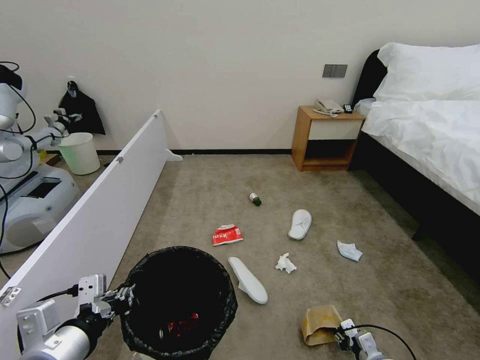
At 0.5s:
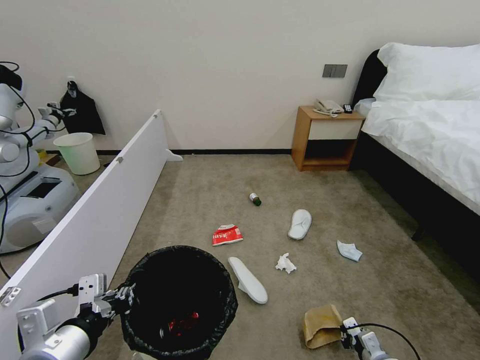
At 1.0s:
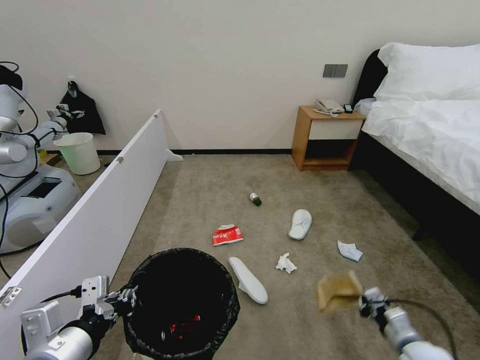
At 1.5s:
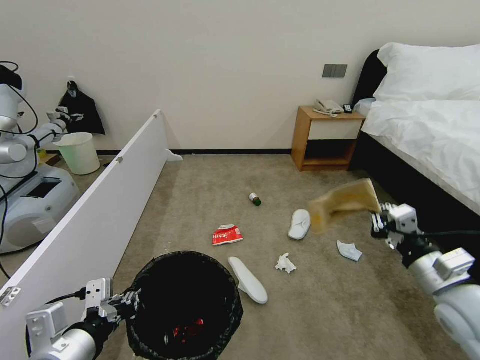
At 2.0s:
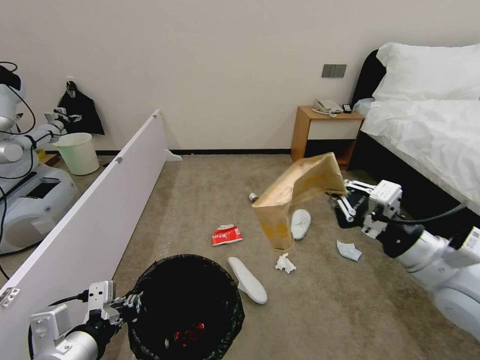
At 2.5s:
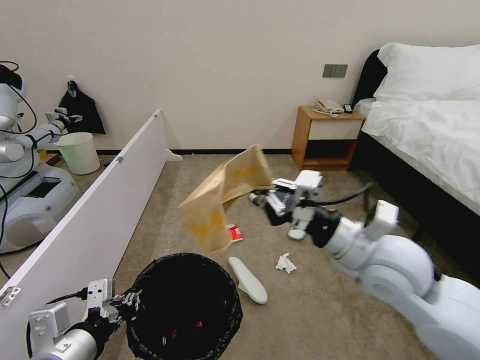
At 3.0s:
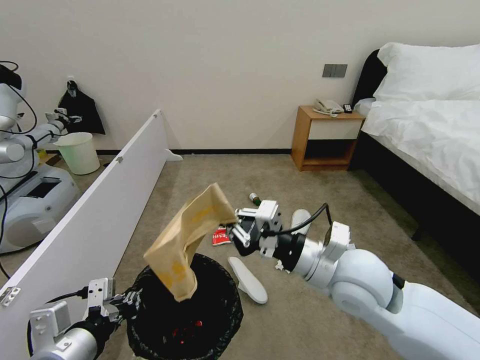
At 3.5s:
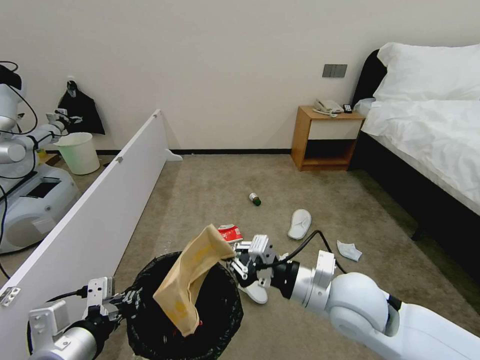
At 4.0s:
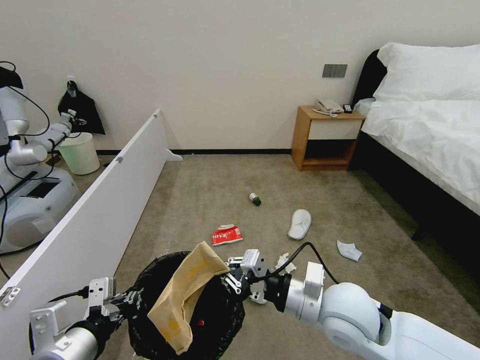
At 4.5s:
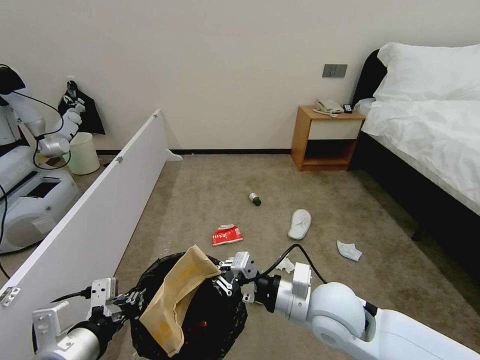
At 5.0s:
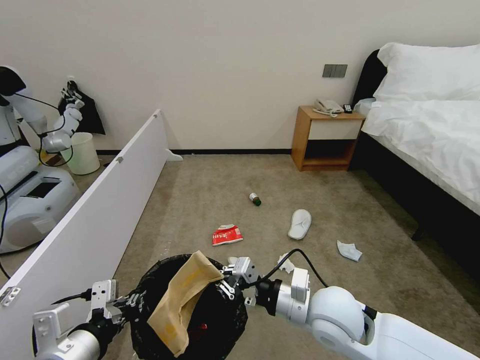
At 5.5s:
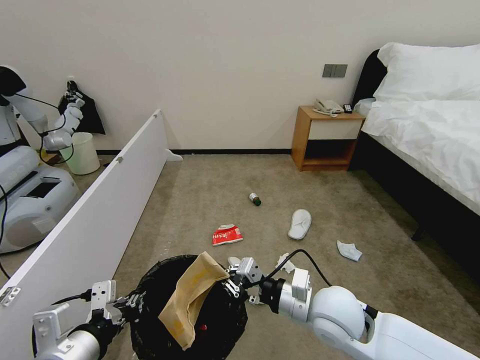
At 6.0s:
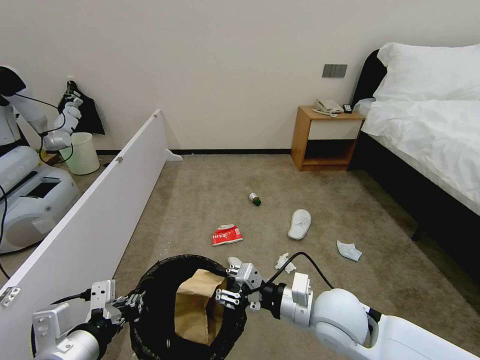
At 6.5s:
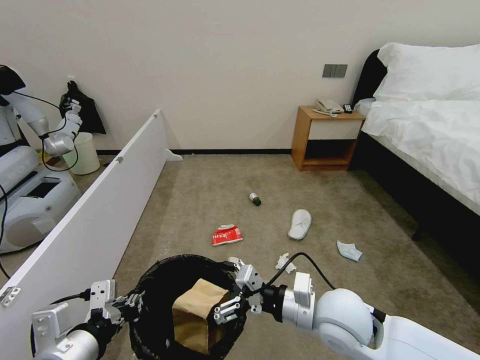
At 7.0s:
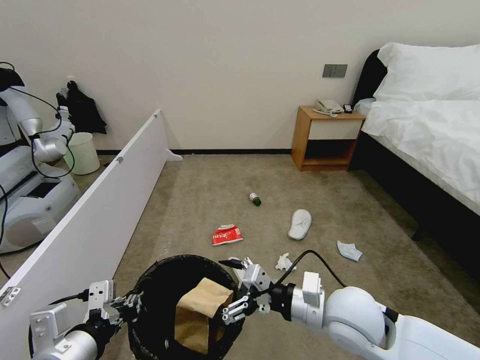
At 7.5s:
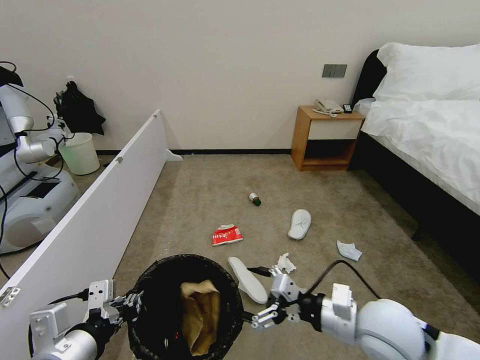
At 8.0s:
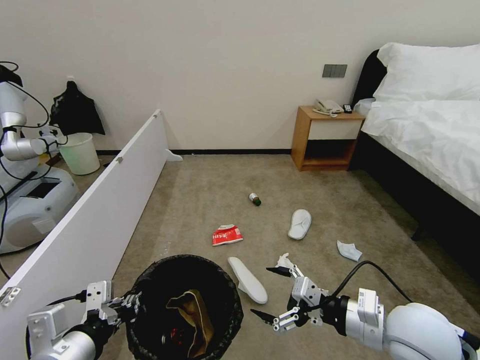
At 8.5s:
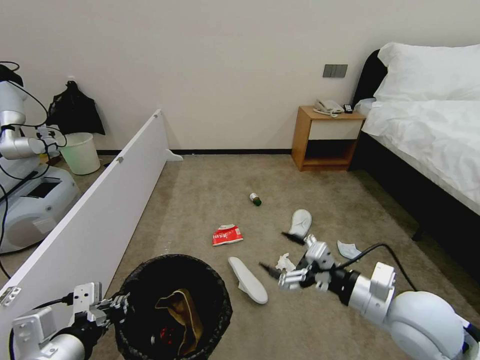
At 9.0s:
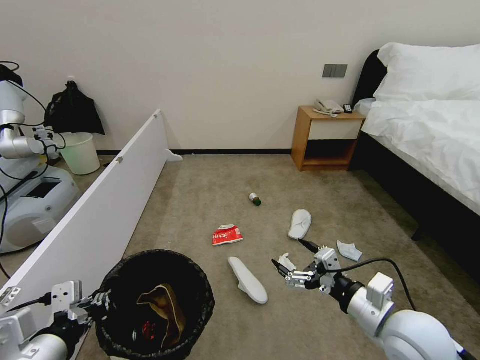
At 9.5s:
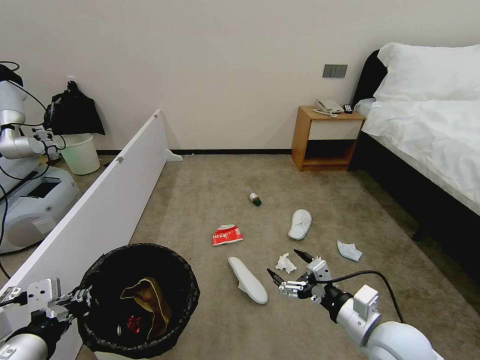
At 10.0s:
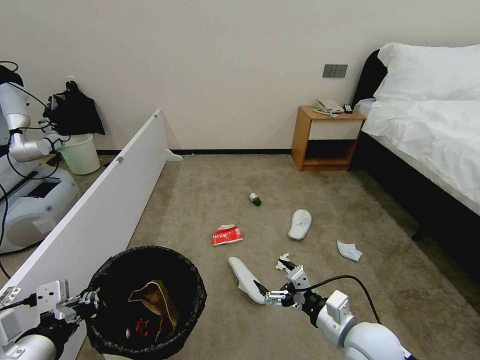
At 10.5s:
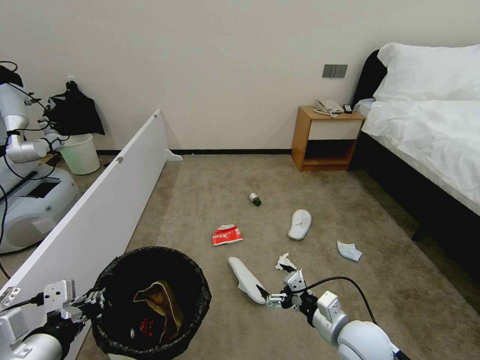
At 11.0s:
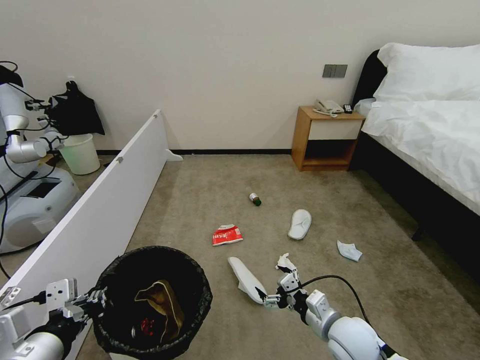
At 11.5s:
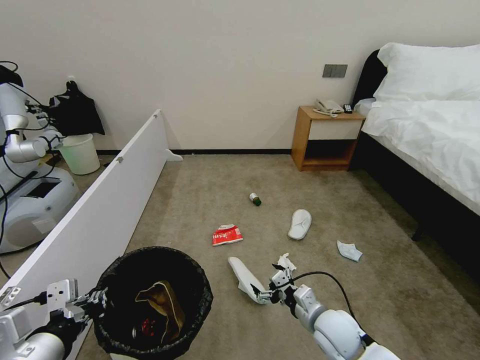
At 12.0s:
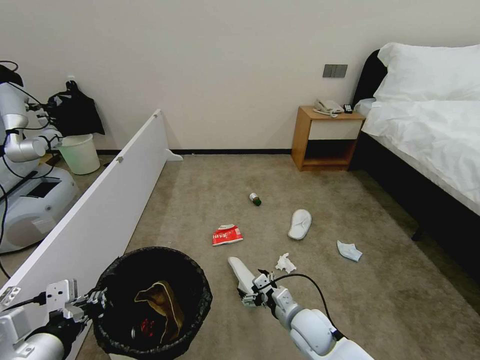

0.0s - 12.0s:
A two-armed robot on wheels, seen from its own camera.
Task of the whole recording: Pick up the trash bin, then pick up the garbage from the floor and place it into the trash bin.
0.0s - 2.0s: The right gripper goes roughly 40 cm upward.
2.0s - 4.0s: The right gripper moves to the left and downward, approximately 20 cm.
4.0s - 6.0s: The right gripper opens its fingers.
6.0s - 8.0s: The right gripper heads to the right, covering approximately 10 cm, and opens up.
8.0s - 10.0s: The right gripper travels downward by some 10 cm.
10.0s - 12.0s: The right gripper shifts approximately 15 cm downward, to the left and forward.

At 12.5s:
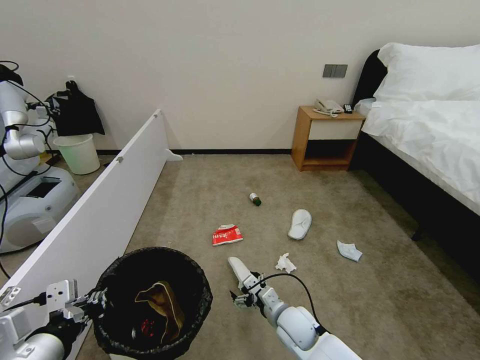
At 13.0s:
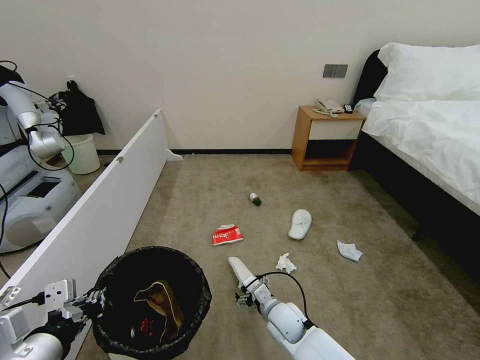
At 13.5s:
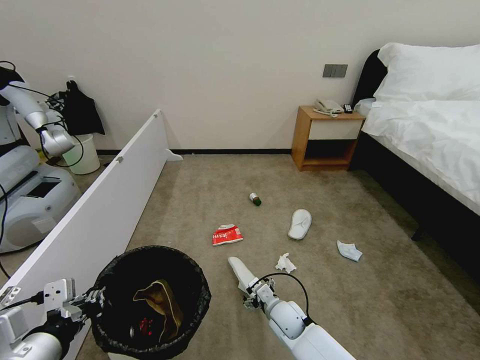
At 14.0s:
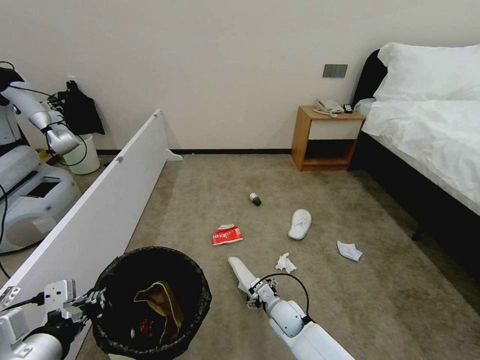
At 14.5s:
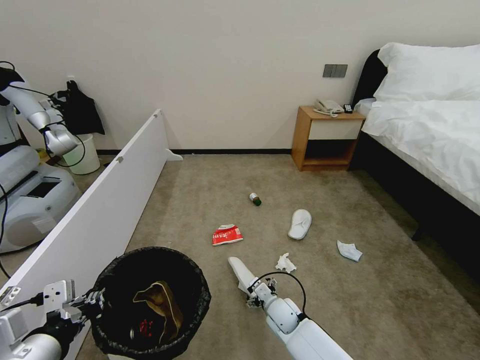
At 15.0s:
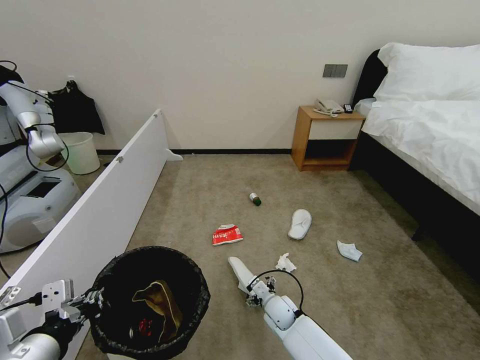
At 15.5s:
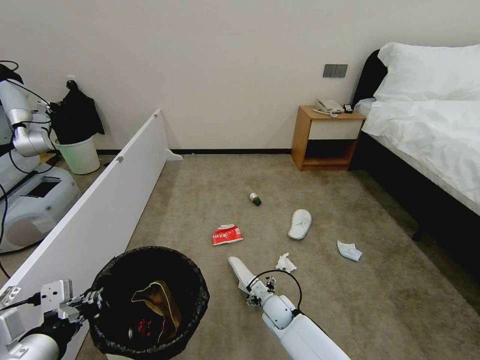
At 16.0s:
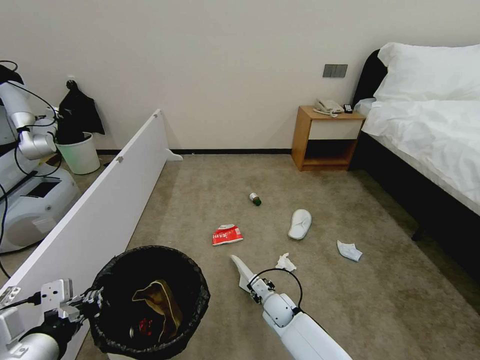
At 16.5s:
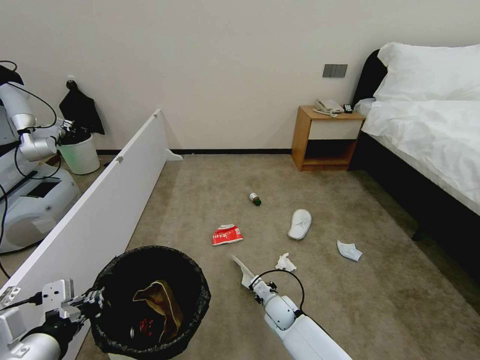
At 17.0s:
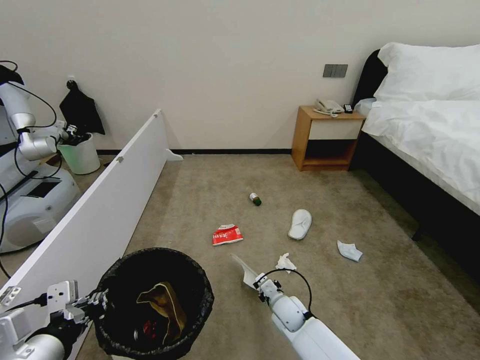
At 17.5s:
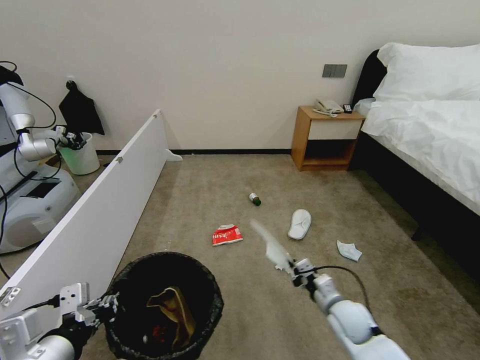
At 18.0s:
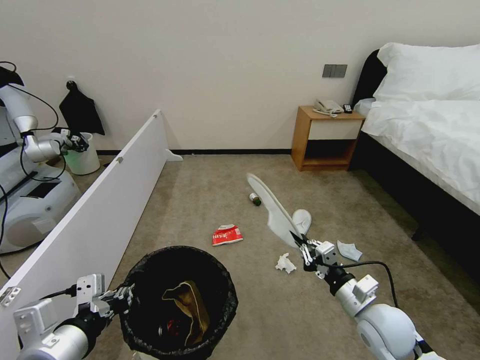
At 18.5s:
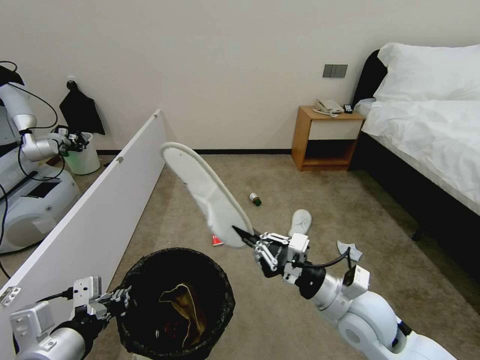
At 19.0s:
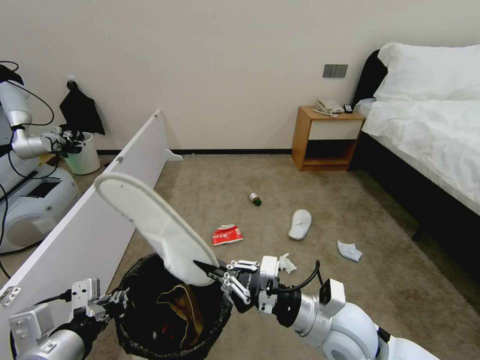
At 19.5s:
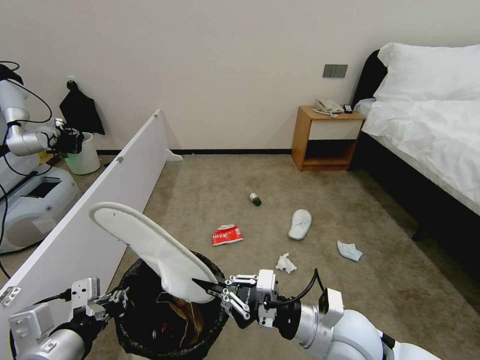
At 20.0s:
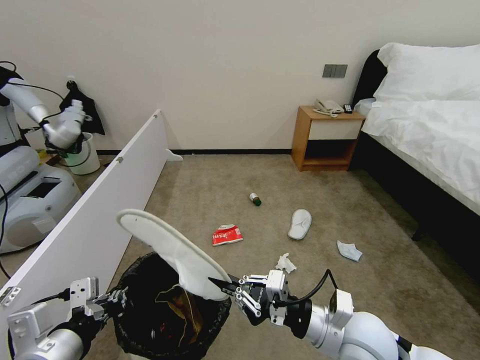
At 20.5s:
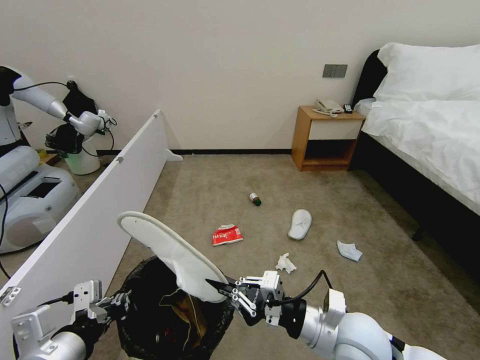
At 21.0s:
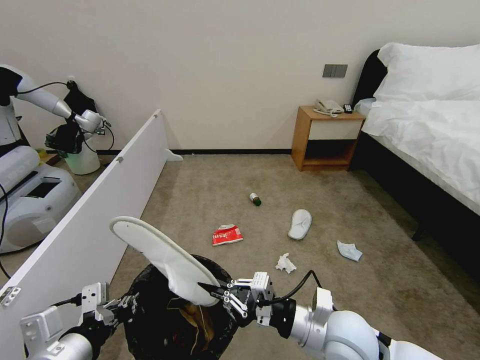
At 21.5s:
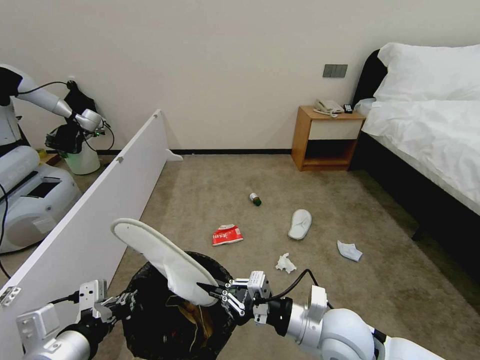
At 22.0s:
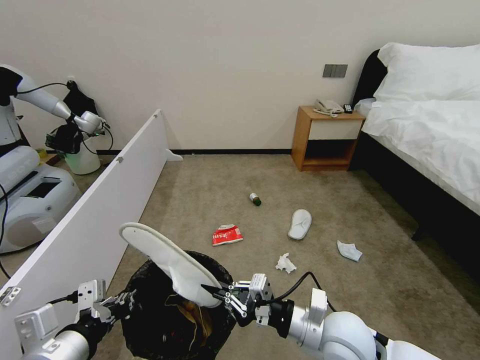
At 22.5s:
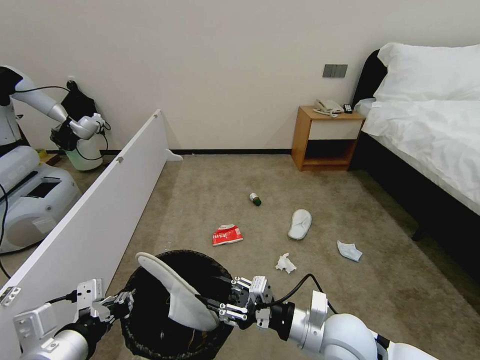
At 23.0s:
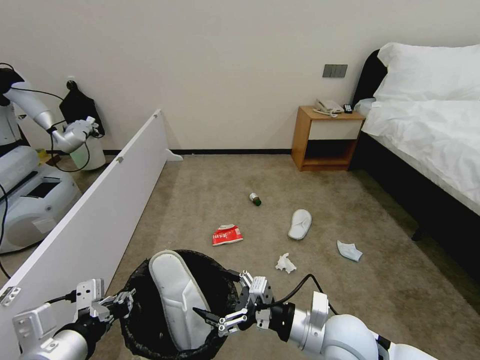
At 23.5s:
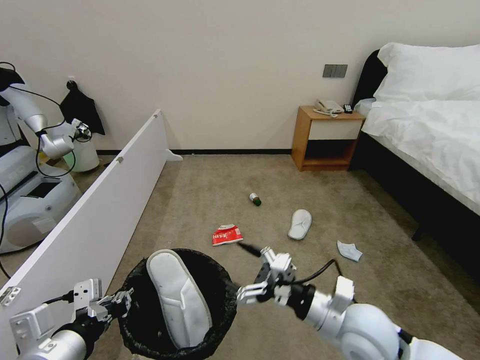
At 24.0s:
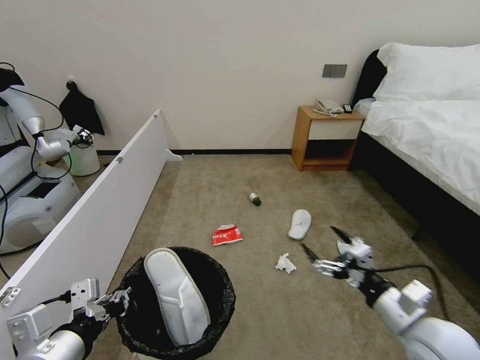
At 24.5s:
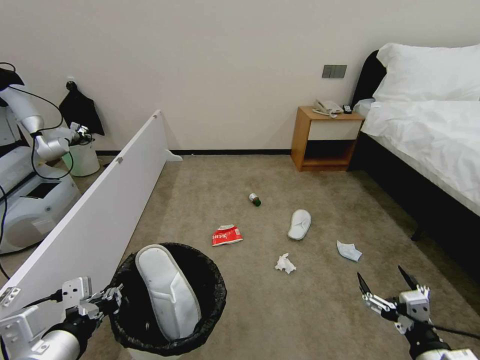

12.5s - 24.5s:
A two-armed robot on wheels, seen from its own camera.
Task of the whole recording: Pick up the trash bin, then pick up the garbage from the floor and place it into the trash bin.
12.5s - 14.5s: The right gripper is displaced downward and forward by approximately 10 cm.
14.5s - 16.5s: The right gripper closes up.
16.5s - 18.5s: The right gripper travels upward, backward and to the right by some 30 cm.
18.5s - 20.5s: The grippers make only small movements.
20.5s - 22.5s: The right gripper opens its fingers.
22.5s - 24.5s: The right gripper shifts some 20 cm to the right and backward, and opens.

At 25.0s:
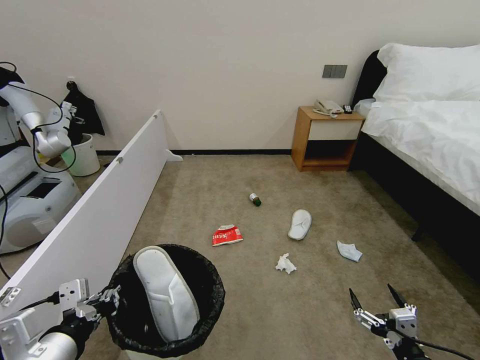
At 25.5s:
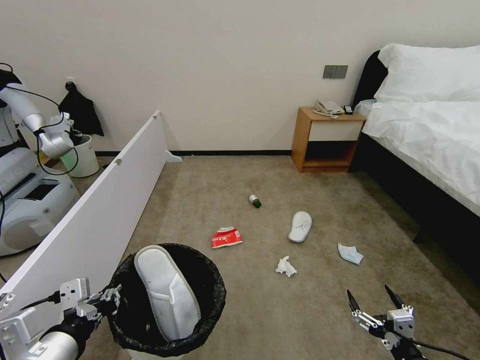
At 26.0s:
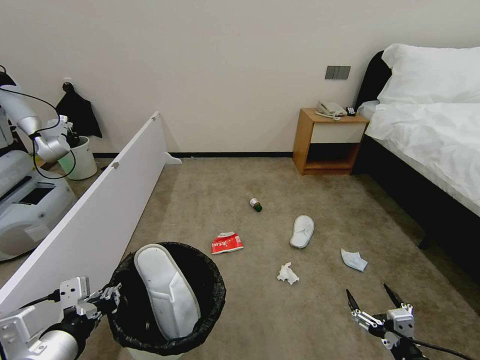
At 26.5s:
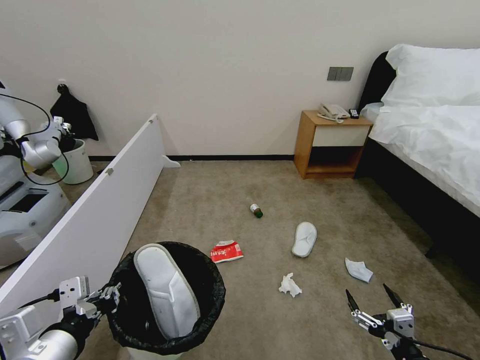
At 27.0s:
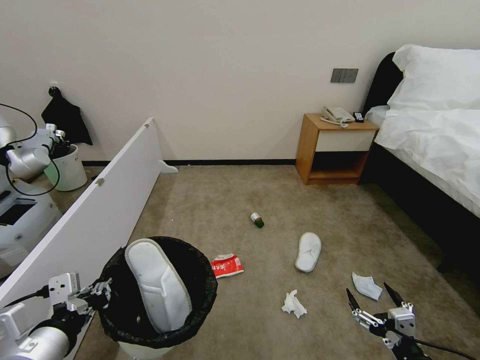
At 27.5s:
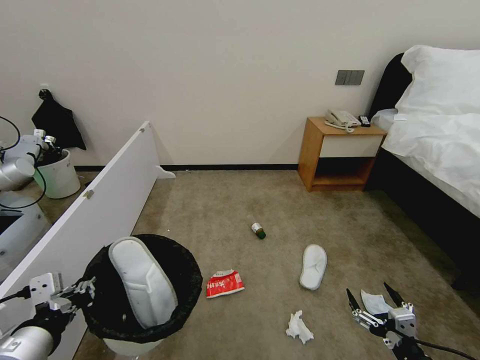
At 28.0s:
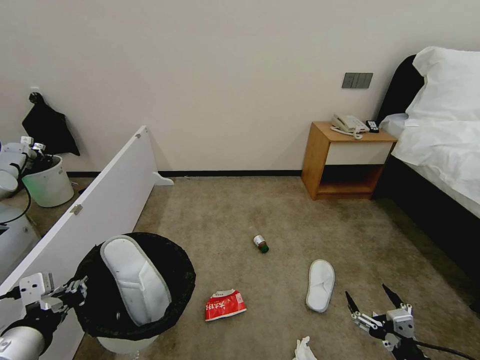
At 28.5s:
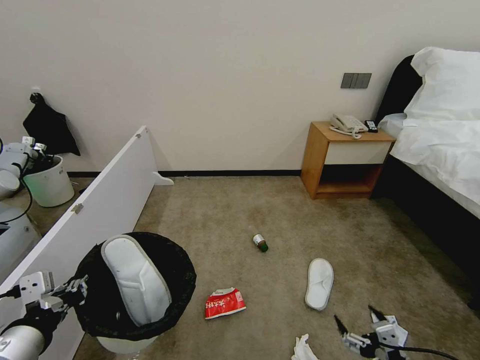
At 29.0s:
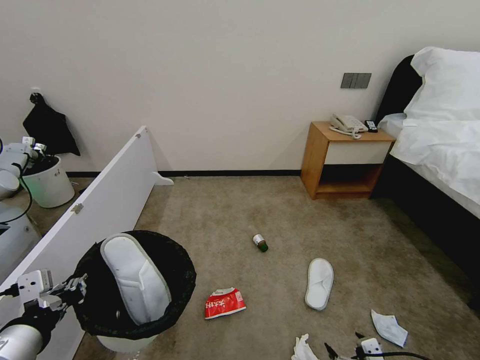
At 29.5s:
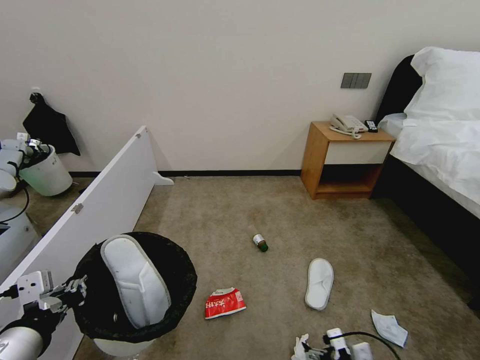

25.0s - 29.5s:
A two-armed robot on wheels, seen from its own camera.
Task of the whole recording: Pick up the trash bin, then pick up the garbage from the floor and place it into the trash bin.
27.0s - 29.5s: The right gripper moves downward and forward, approximately 10 cm.
